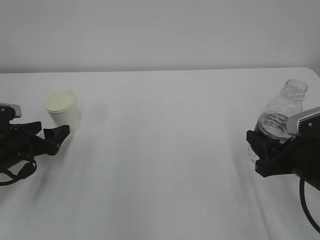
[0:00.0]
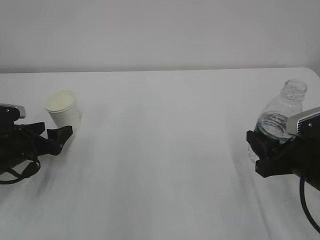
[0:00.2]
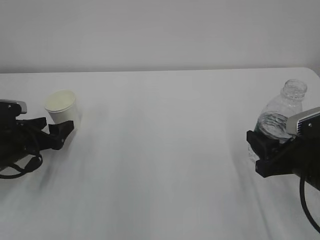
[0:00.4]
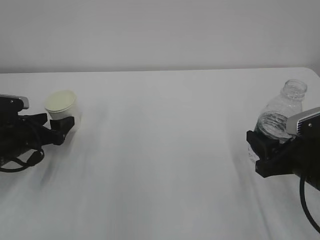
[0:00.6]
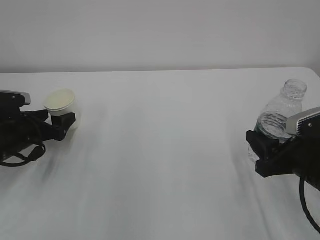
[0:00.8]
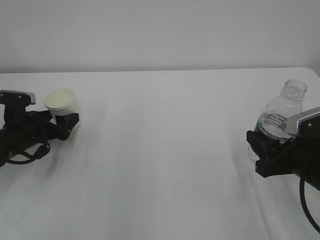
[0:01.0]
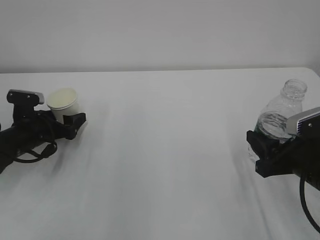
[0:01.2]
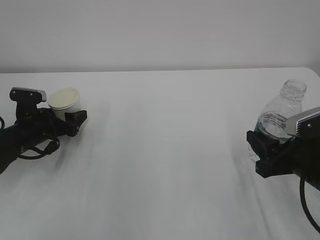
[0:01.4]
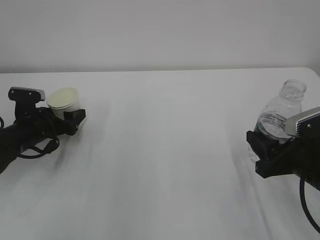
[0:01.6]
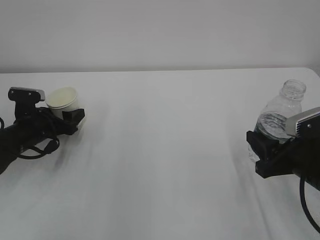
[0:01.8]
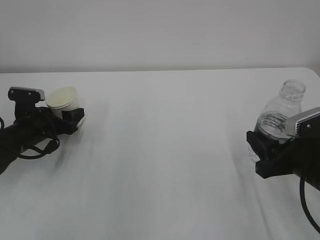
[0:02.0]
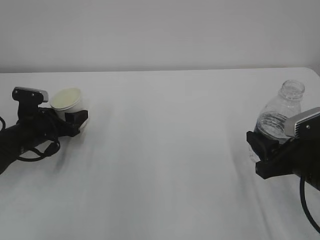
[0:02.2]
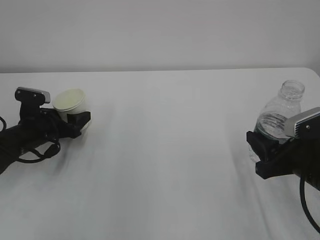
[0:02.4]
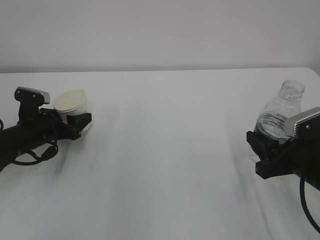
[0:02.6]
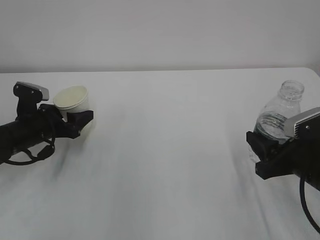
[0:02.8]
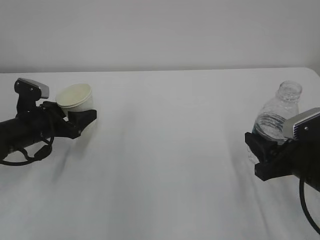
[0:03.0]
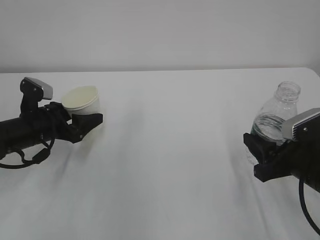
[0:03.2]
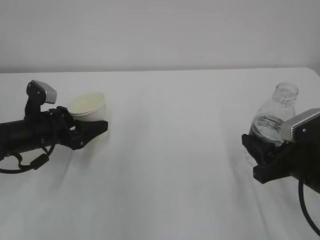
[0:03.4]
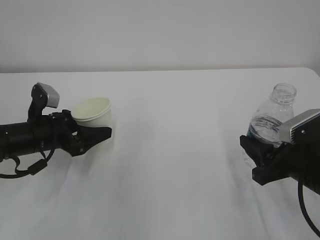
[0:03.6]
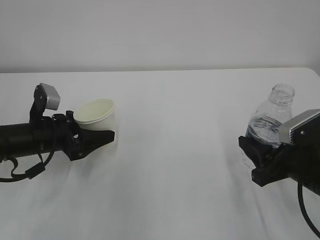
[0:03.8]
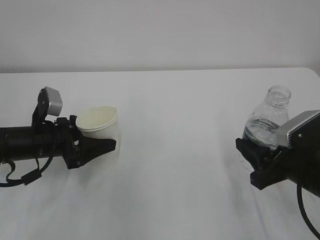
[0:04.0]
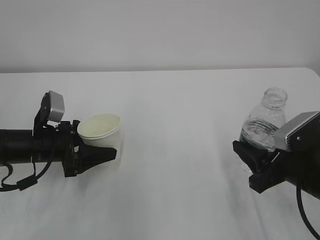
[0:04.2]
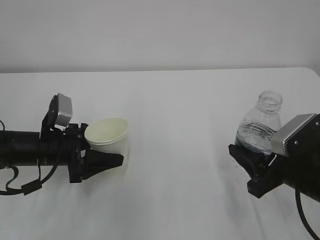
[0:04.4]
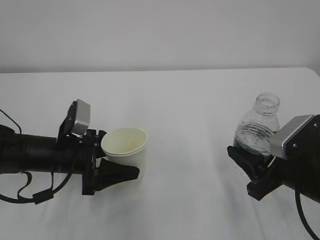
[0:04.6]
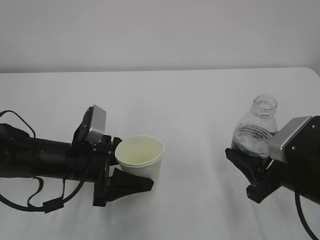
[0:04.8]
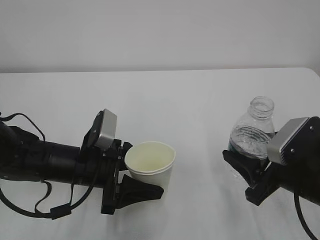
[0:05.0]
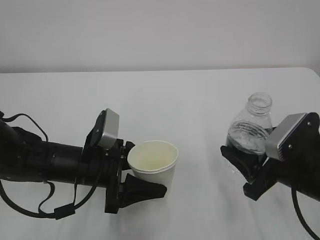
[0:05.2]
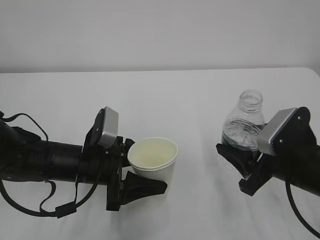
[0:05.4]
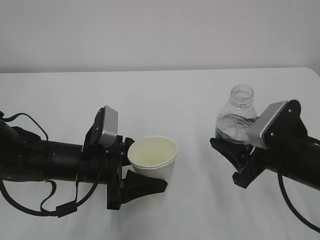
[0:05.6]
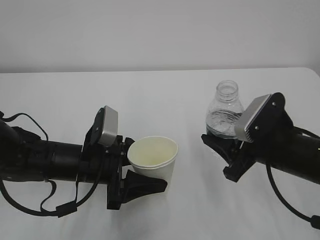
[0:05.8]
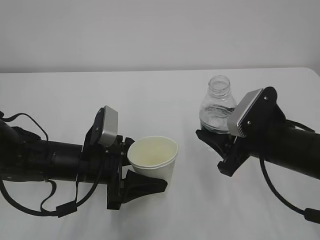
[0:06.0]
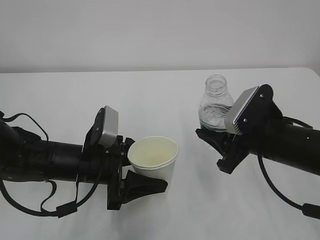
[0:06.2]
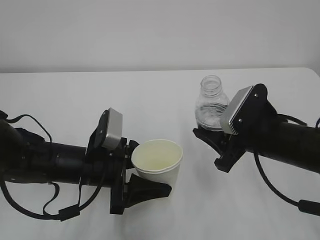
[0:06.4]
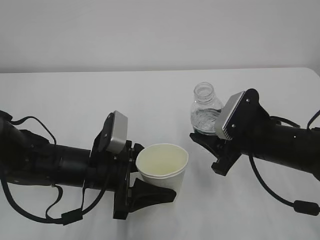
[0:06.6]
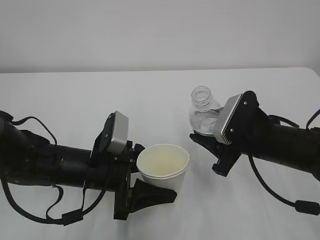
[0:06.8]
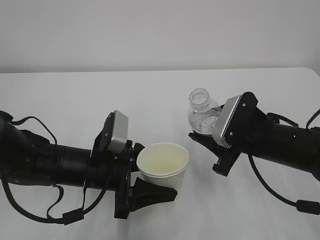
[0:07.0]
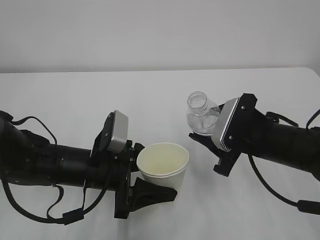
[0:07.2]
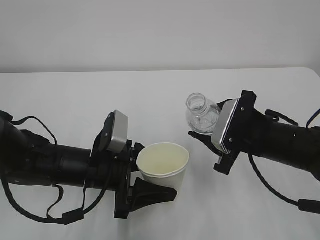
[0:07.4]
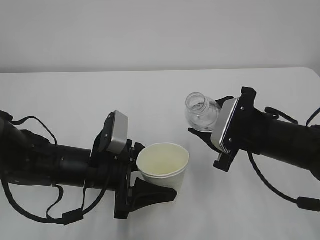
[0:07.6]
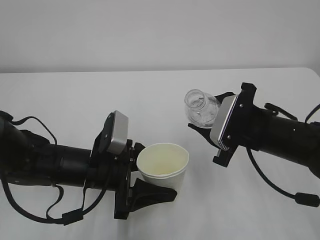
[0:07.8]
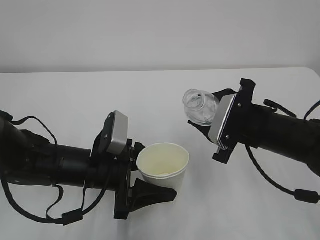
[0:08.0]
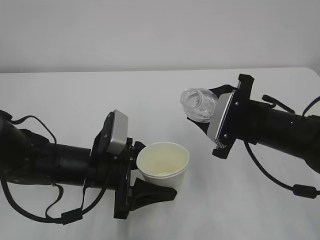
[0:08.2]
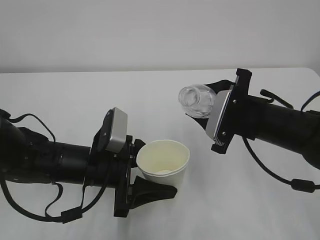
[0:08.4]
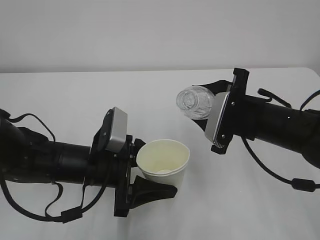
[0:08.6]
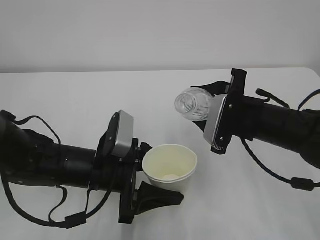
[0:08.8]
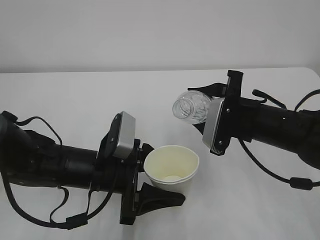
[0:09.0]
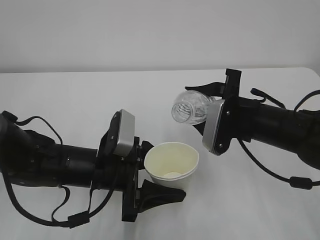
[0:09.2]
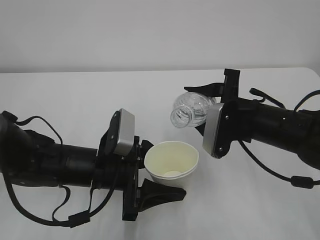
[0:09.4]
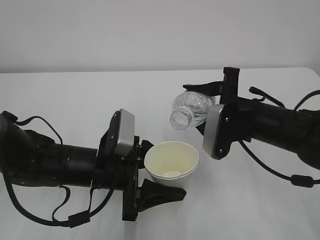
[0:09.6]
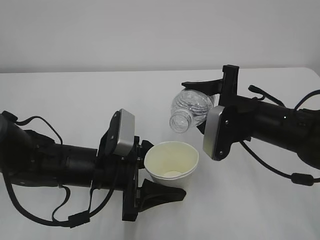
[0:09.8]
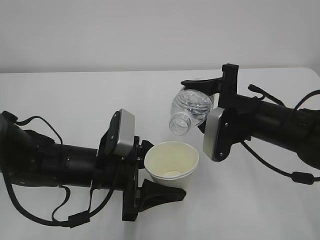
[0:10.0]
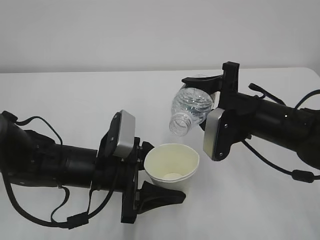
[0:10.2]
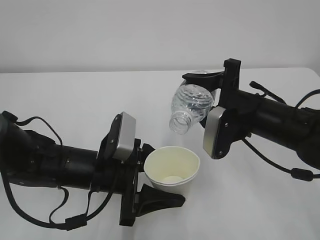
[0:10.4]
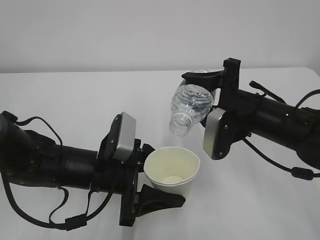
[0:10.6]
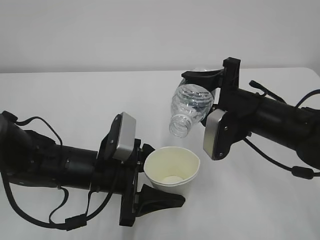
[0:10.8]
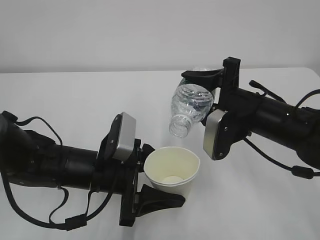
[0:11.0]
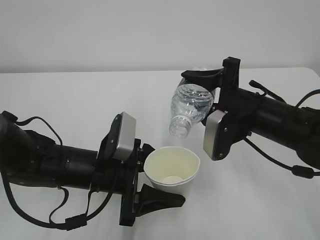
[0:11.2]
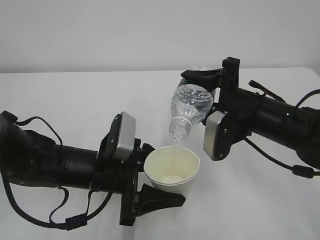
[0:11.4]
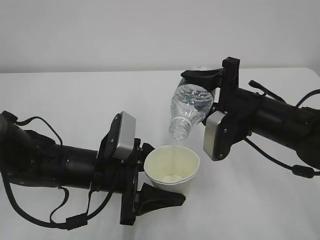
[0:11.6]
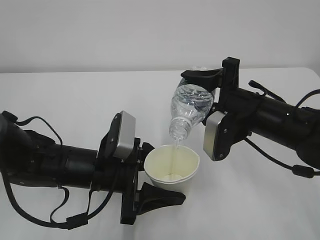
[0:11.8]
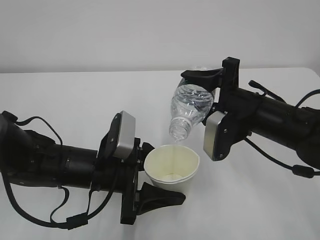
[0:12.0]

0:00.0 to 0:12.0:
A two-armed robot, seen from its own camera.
0:00.0 to 0:01.6: The left gripper heads forward, covering some 5 cm.
0:01.6 to 0:03.0: The left gripper closes.
0:03.0 to 0:04.4: The left gripper changes place by approximately 5 cm.
0:04.4 to 0:06.0: The left gripper moves to the right, some 10 cm. The right gripper changes place by approximately 5 cm.
0:07.6 to 0:09.0: The grippers stay close to where they were, moving slightly.
0:10.4 to 0:12.0: The grippers make only small movements.

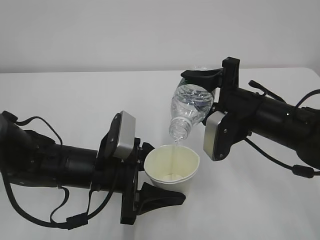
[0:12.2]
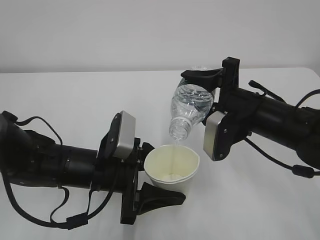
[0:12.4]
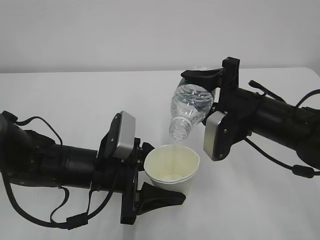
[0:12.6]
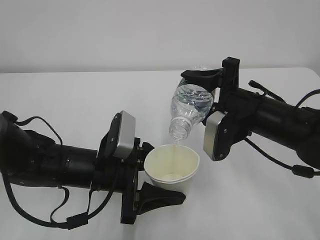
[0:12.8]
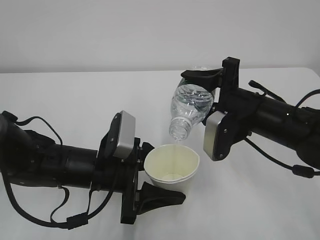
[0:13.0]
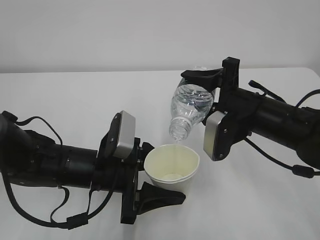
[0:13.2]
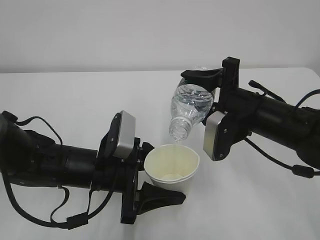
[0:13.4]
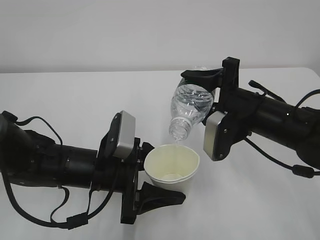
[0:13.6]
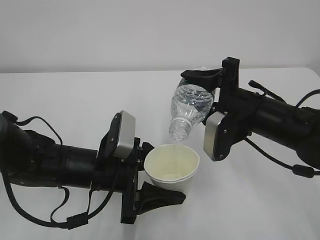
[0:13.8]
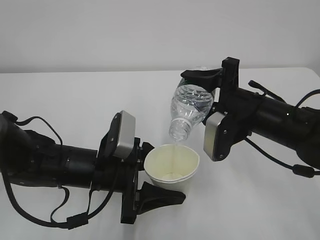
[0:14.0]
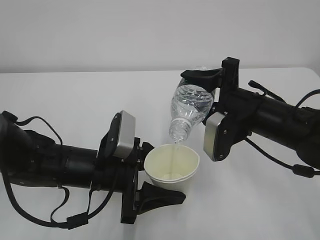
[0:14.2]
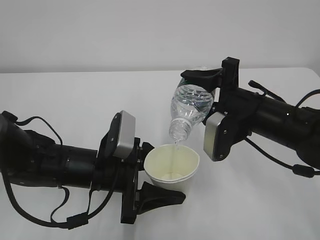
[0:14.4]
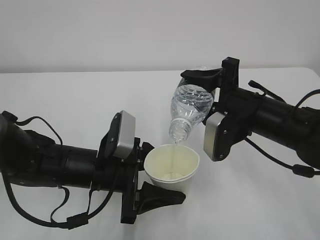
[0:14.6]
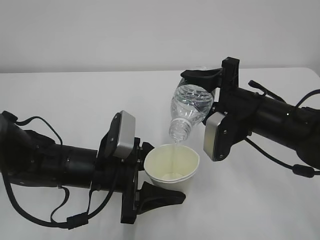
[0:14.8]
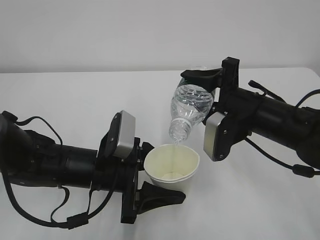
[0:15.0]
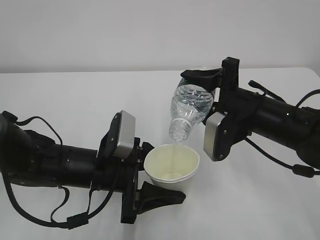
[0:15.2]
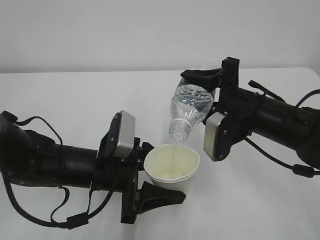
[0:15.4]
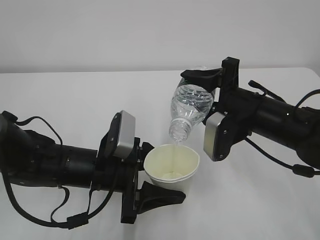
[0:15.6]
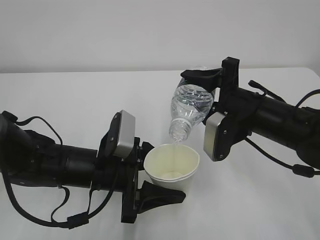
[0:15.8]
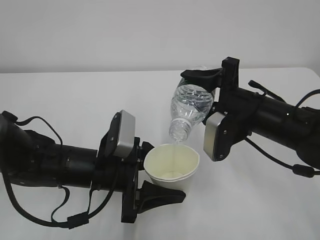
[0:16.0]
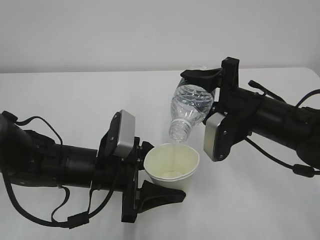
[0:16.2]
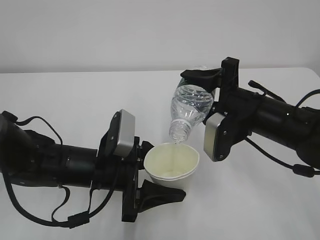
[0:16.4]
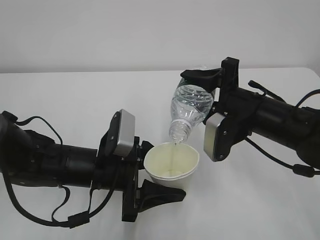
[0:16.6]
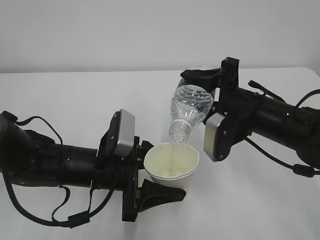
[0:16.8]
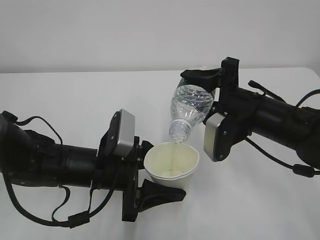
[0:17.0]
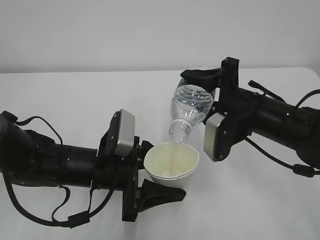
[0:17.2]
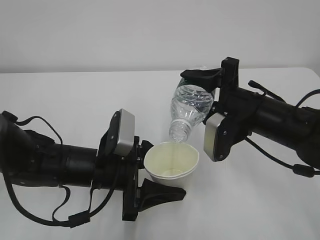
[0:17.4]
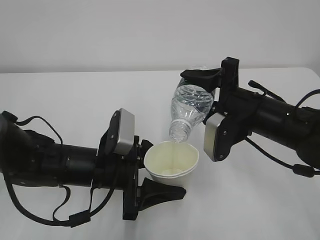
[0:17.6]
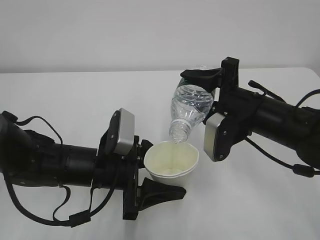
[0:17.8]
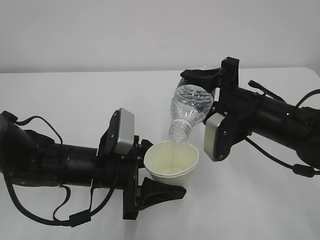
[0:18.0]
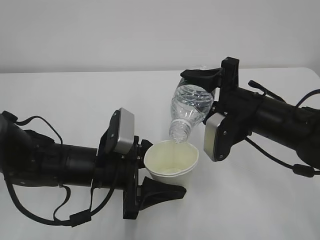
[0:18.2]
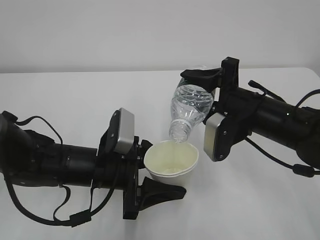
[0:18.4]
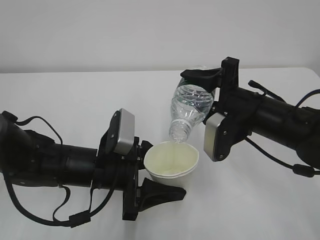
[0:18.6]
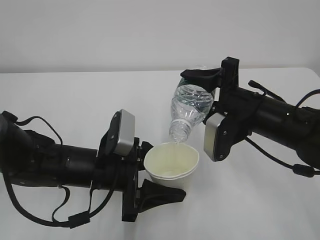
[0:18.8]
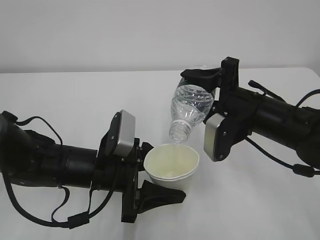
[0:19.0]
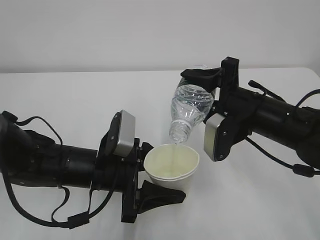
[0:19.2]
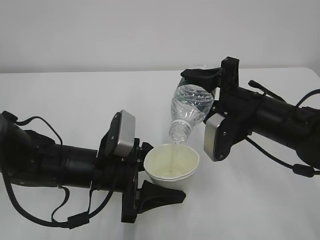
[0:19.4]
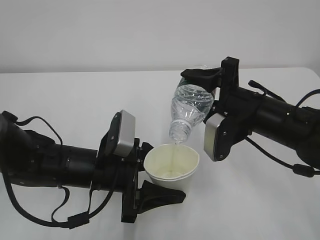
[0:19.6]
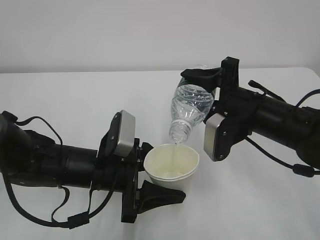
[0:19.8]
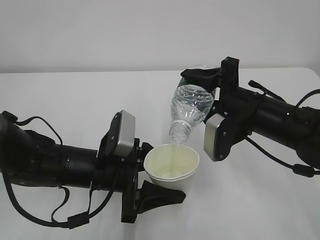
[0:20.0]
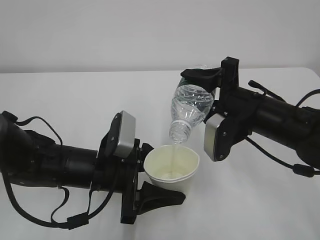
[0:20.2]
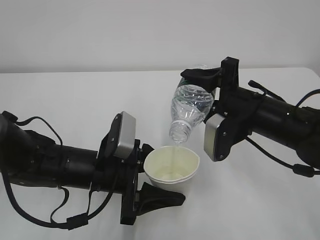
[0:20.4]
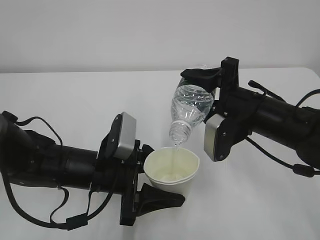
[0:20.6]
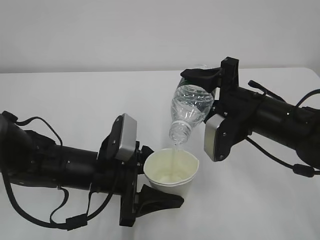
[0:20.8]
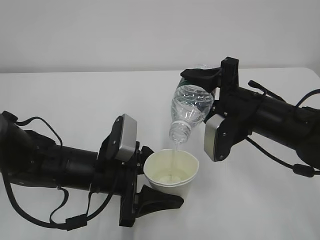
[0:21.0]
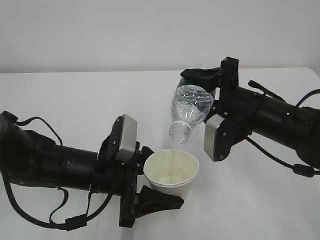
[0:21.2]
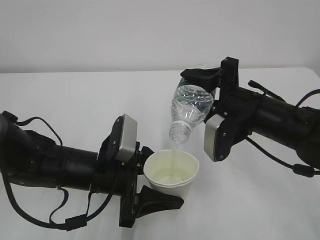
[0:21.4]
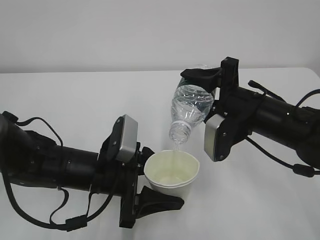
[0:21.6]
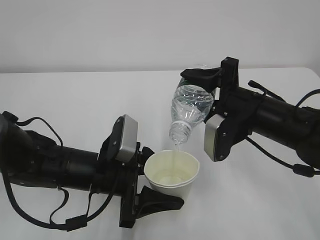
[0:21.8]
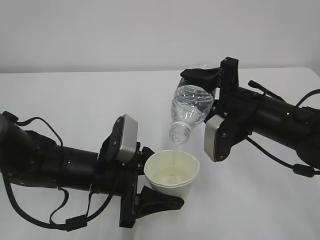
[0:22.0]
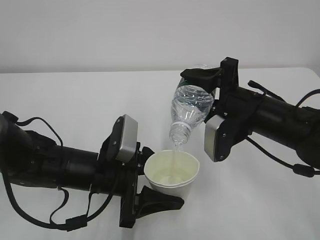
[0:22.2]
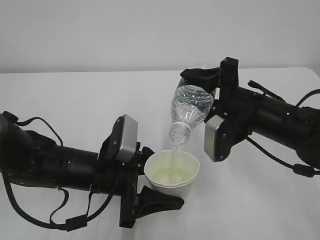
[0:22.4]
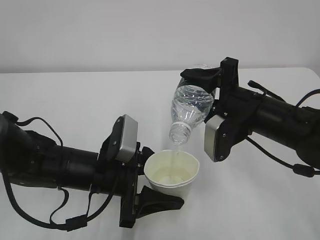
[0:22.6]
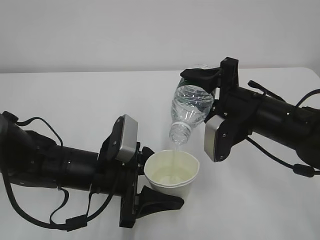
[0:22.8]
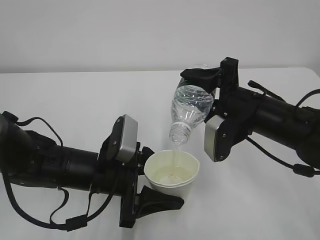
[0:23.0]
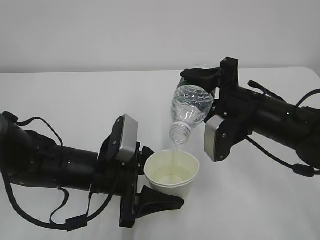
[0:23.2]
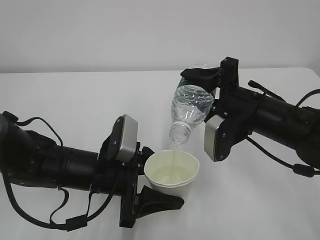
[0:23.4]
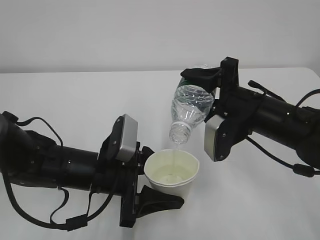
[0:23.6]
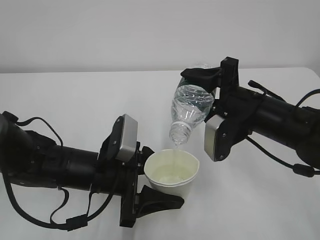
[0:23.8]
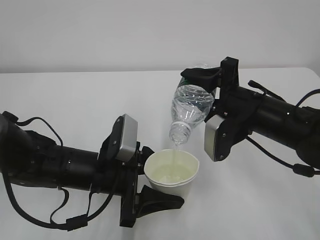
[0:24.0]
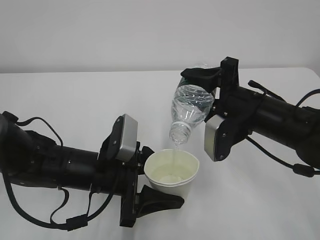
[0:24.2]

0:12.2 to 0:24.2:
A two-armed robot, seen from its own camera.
0:12.2 to 0:19.8: Both grippers stay about where they are.
0:19.8 to 0:24.2: Neither gripper changes place.
